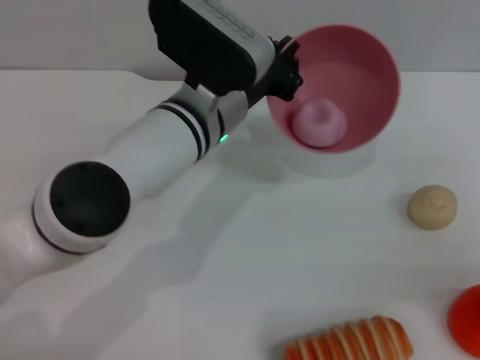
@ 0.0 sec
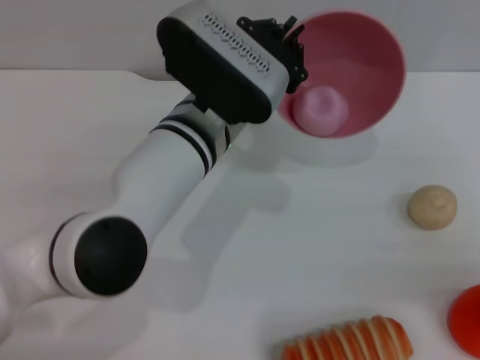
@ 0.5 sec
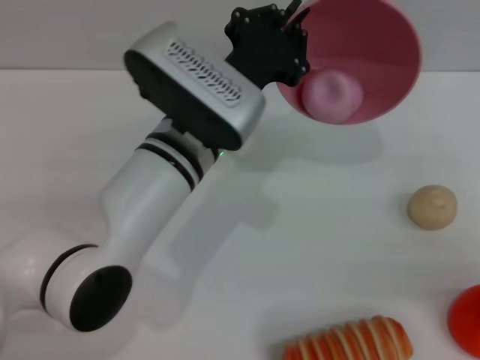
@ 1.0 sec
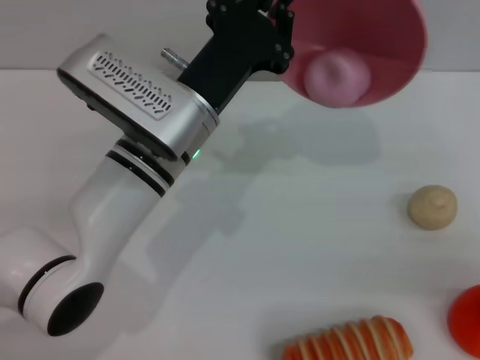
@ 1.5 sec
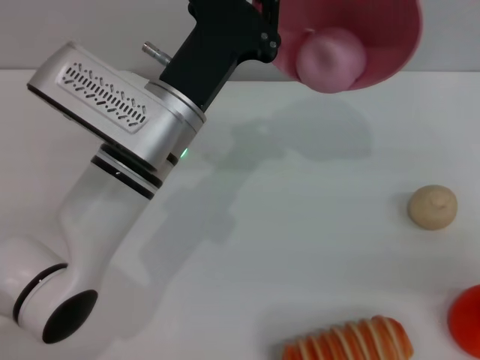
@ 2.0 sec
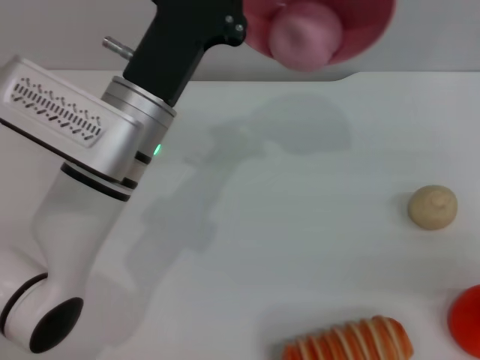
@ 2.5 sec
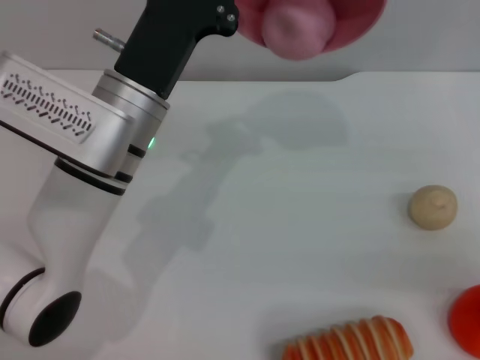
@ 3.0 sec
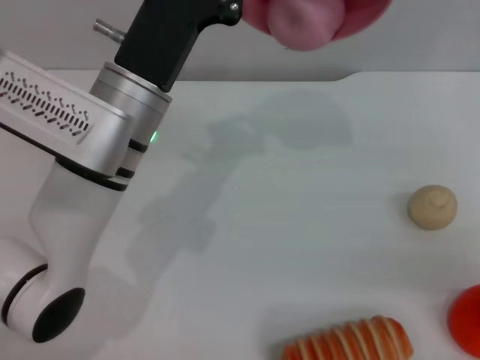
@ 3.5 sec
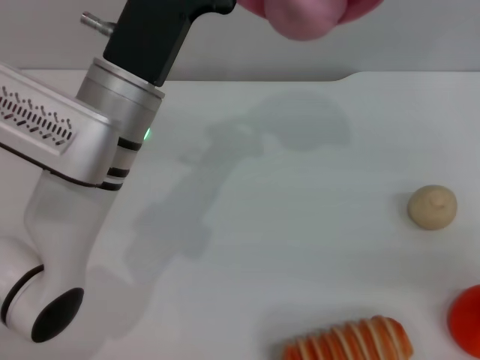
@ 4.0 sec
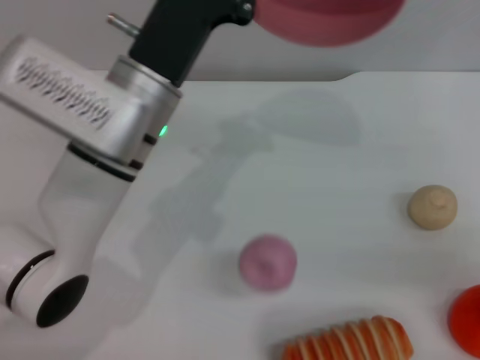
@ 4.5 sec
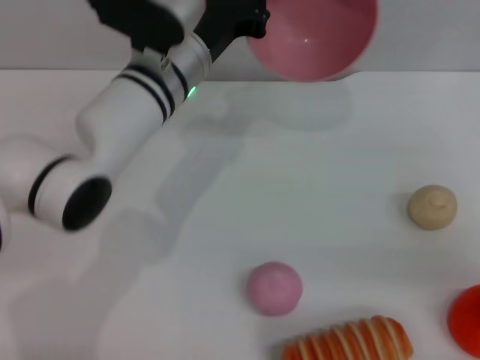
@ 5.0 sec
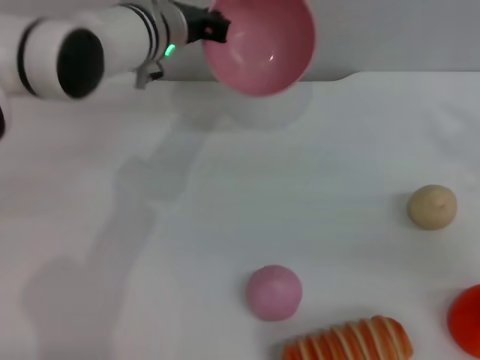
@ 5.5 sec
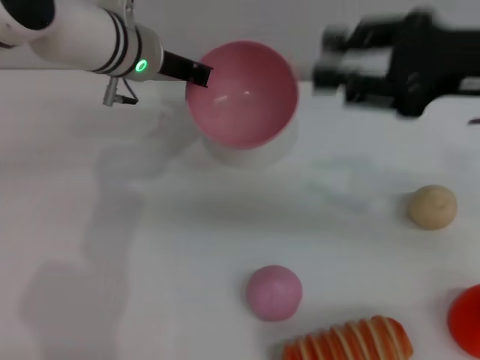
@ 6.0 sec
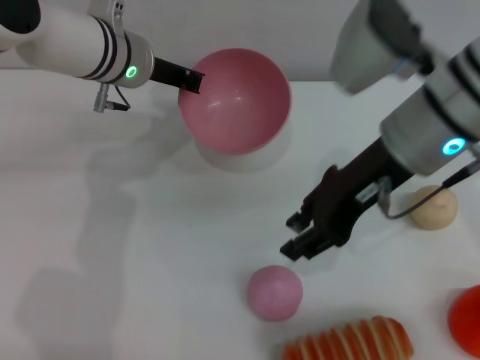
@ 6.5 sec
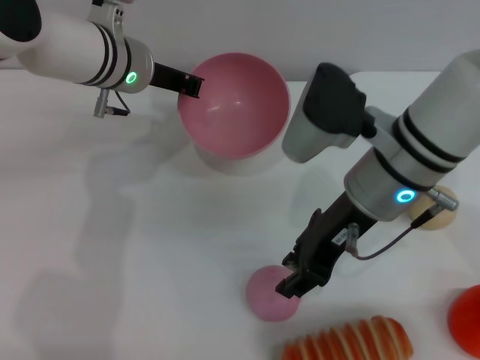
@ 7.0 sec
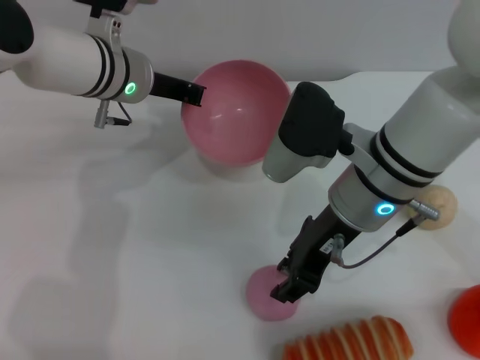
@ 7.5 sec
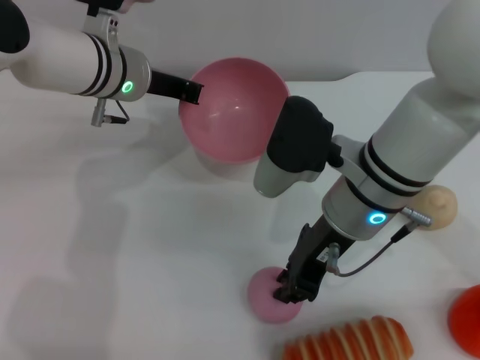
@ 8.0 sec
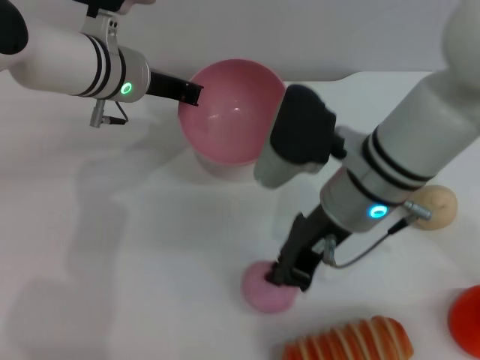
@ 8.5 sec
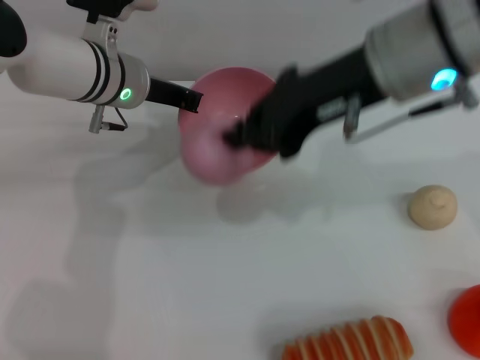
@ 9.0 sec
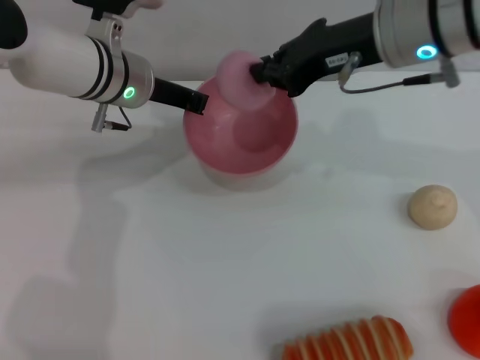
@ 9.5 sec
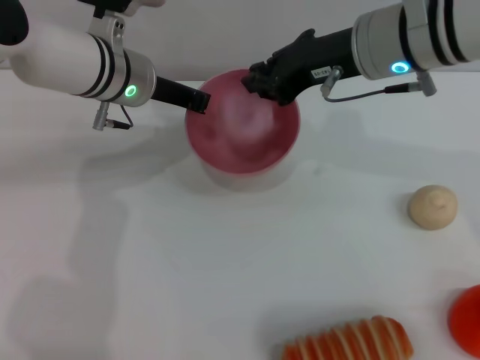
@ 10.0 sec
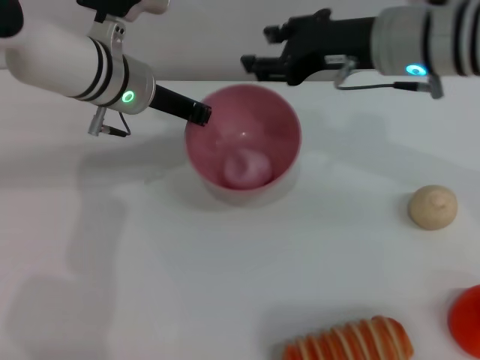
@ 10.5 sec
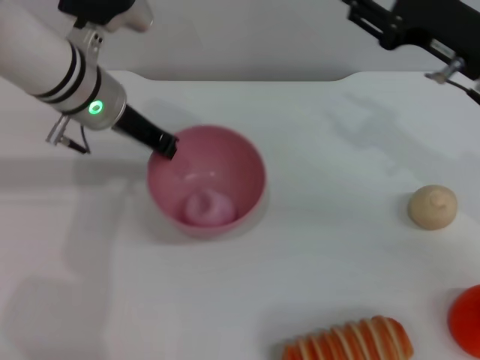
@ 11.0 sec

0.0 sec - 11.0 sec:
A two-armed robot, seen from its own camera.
Task of the whole recording: put the peach into the pink bowl and pour it out repeatedly.
Step, 0.0 sec - 5.0 sec: Pour the peach out of bowl.
Step, 5.5 sec - 8.5 sec: Pick up the peach with the right gripper.
Step, 9.0 sec - 10.0 sec: Place the peach into the bowl.
0.0 sec - 2.0 sec: The left gripper ends up some 5 cm from where it was.
3.5 sec - 5.5 sec: The left gripper shifts some 15 cm forward.
5.5 sec - 7.5 sec: The right gripper goes some 20 cm to the left.
7.5 sec - 9.0 sec: The right gripper travels upward by approximately 15 cm, and closes up.
9.0 sec - 11.0 sec: The right gripper travels to the right and downward by about 15 cm, and opens up.

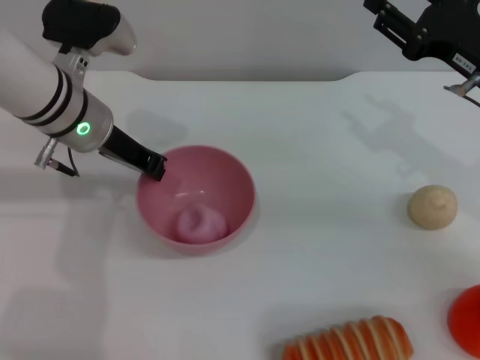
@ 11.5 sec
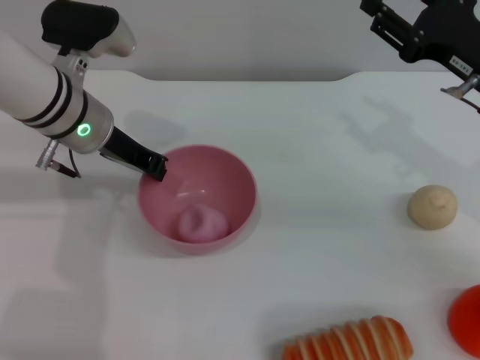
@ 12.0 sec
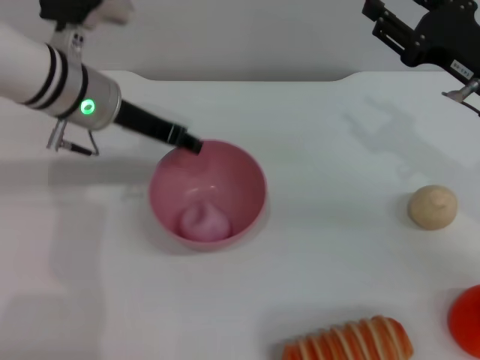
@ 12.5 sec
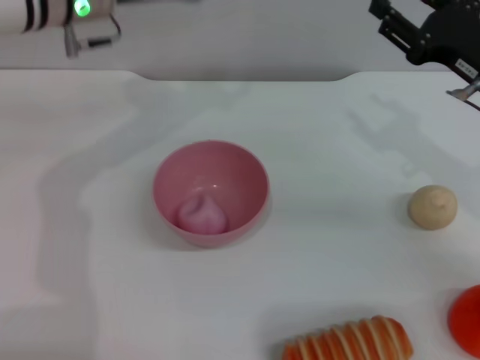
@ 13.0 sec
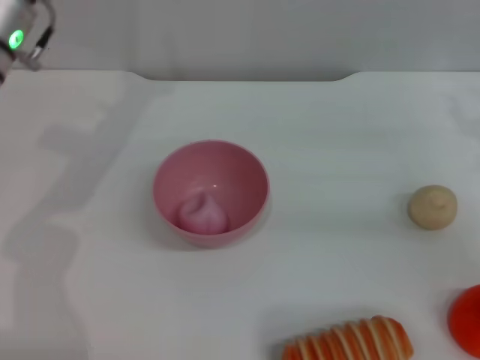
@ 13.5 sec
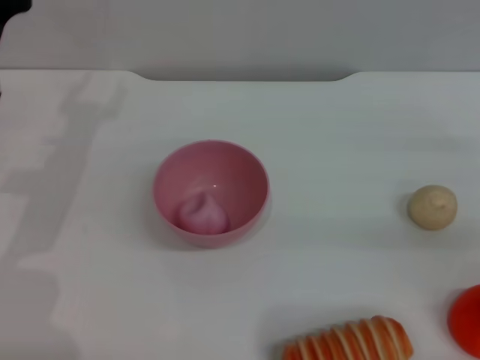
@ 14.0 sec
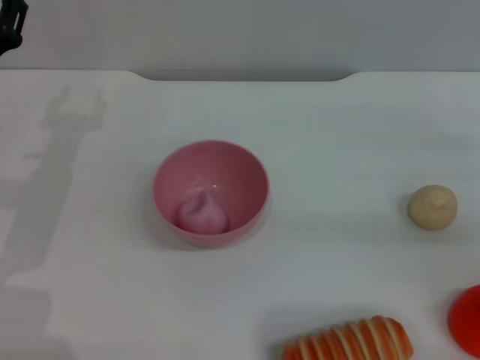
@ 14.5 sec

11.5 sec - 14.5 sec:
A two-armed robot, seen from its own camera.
Task of the whole recording: put the peach into the pink bowl and pour it out repeatedly.
11.5 sec - 13.0 sec: The left gripper shifts roughly 5 cm upward, and opens up.
13.0 sec - 14.5 sec: The right gripper travels to the right by about 10 cm, while the left gripper shifts roughly 20 cm downward, to the left and backward.
